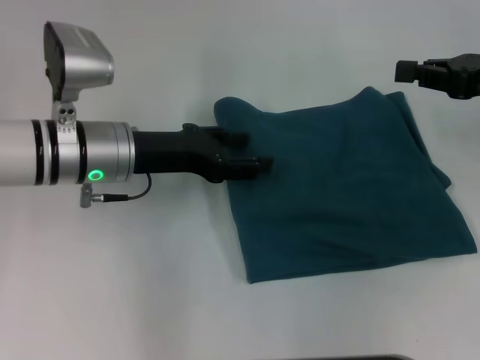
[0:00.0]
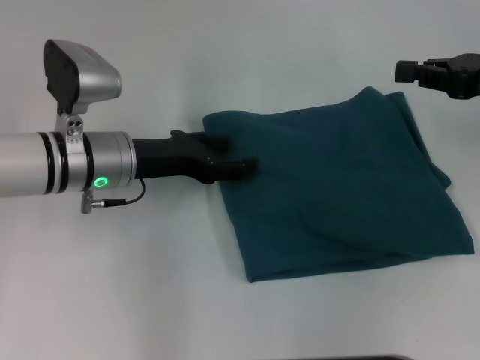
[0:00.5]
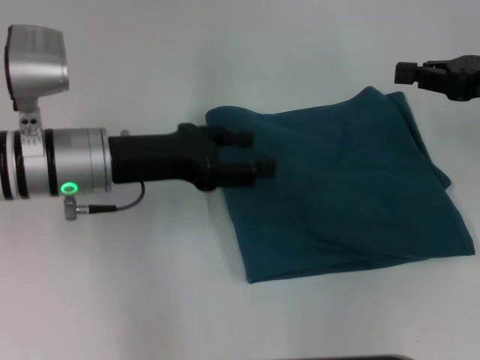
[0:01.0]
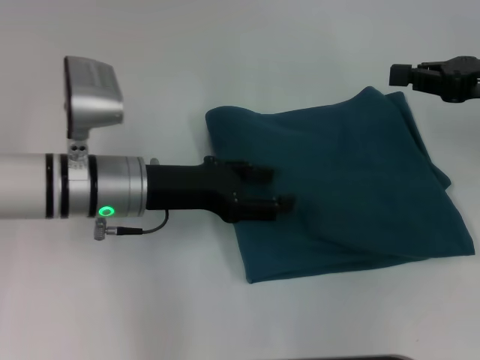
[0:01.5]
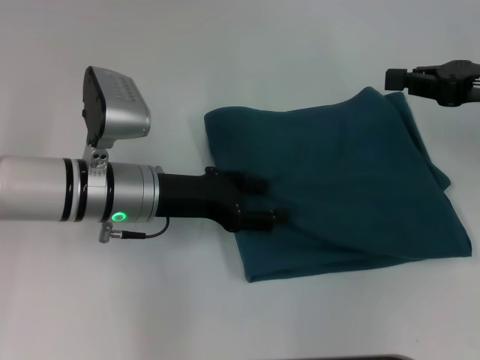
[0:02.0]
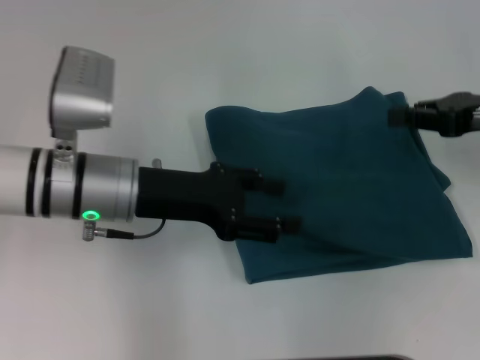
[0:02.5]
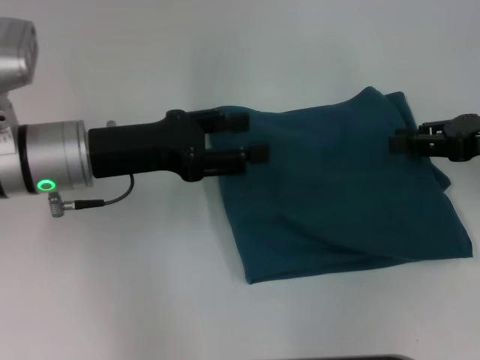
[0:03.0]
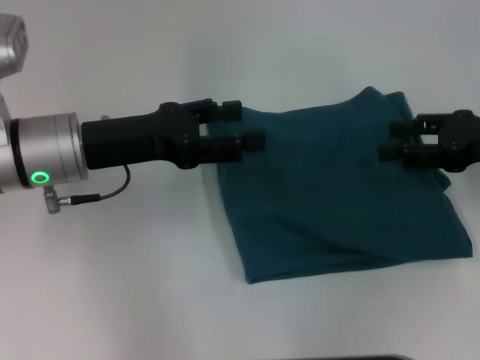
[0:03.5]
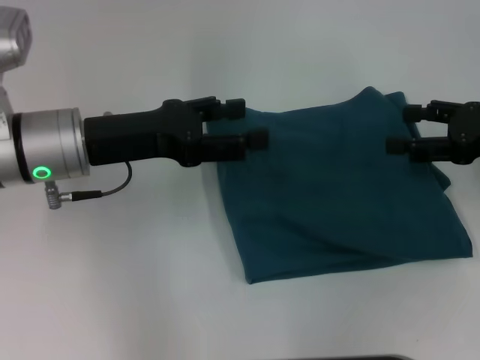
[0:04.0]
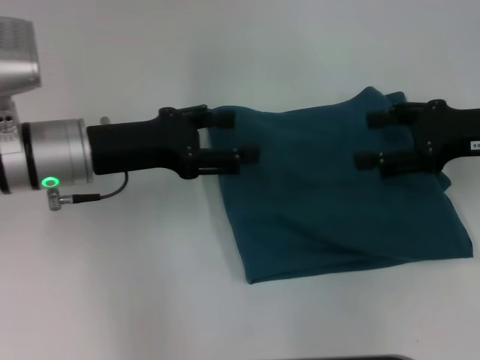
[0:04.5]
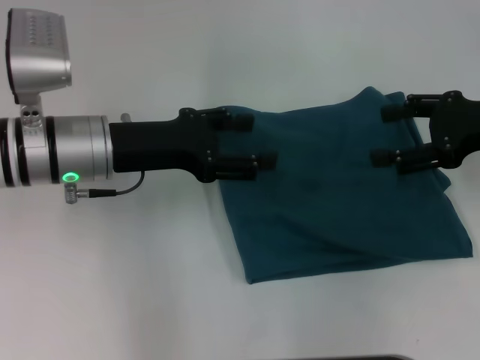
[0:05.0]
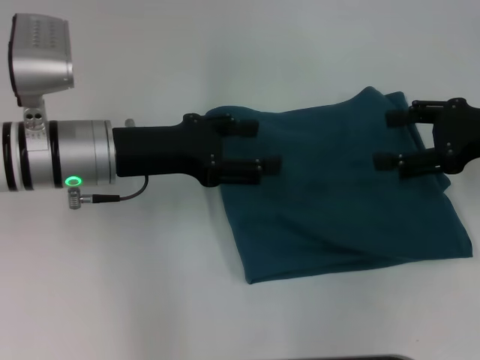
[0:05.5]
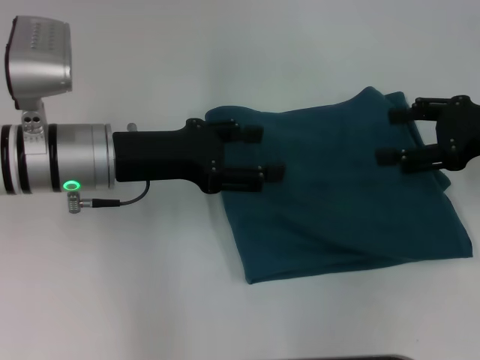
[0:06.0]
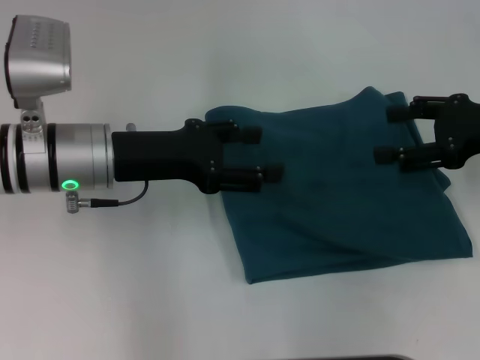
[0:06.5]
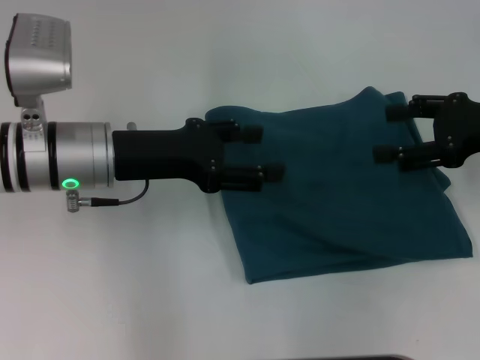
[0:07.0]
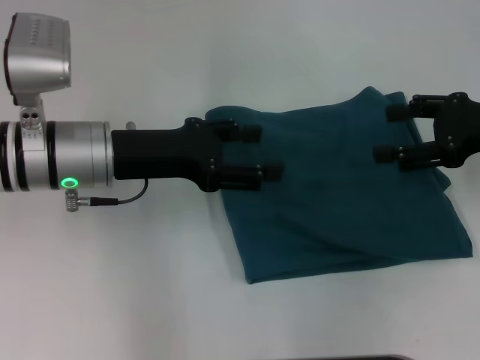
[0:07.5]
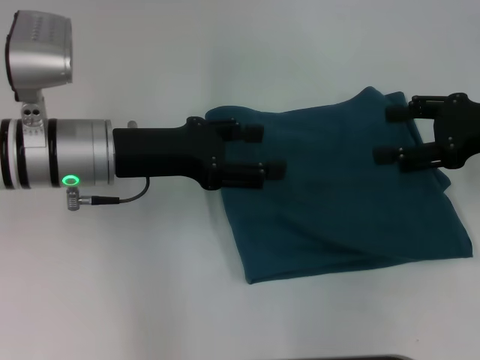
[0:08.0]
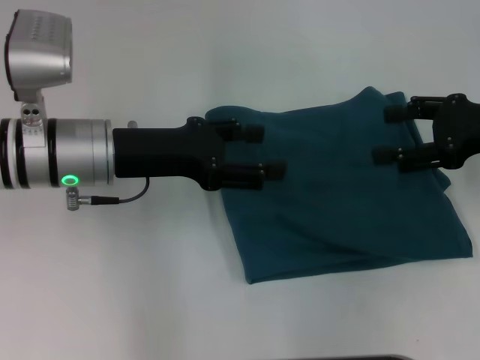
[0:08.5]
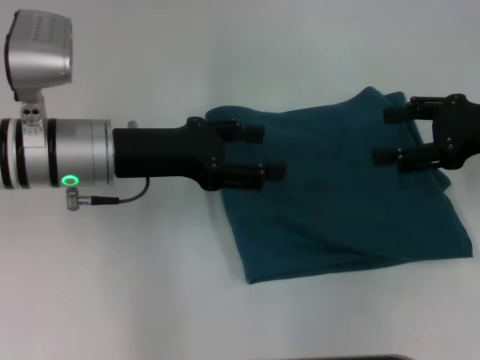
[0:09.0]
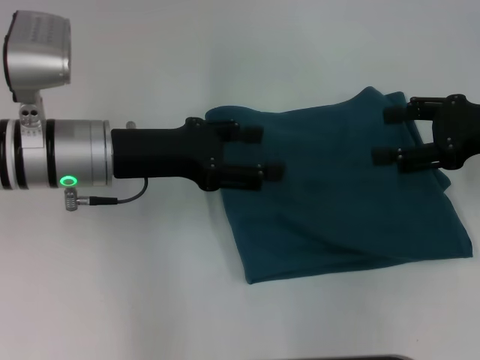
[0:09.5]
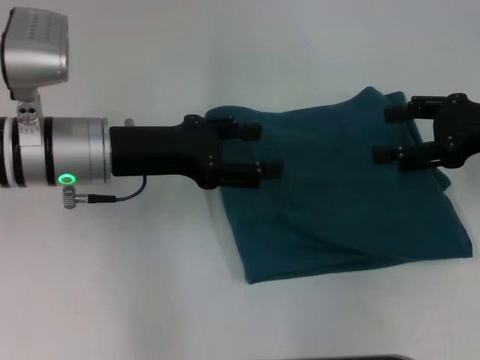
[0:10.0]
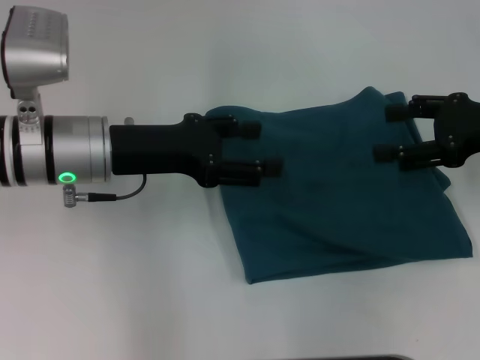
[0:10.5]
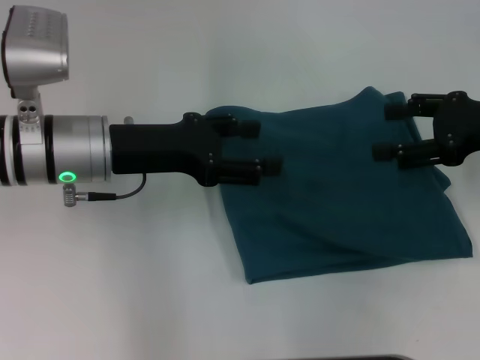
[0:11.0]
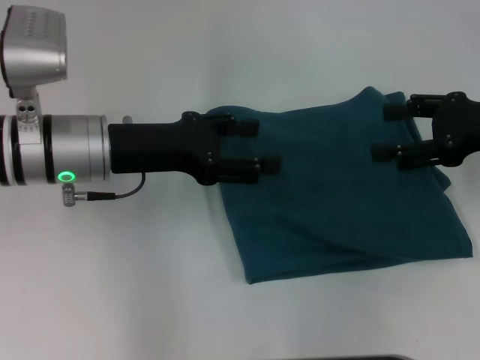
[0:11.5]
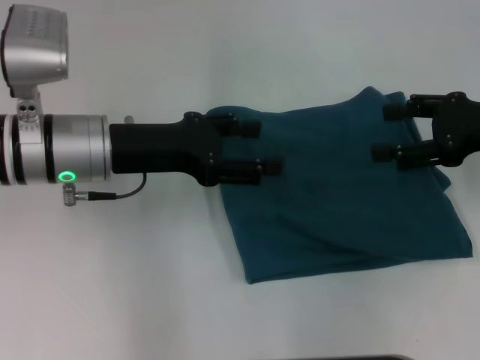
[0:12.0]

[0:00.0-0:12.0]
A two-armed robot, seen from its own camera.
0:00.0 to 0:02.0: There are only small adjustments of the grippers.
0:02.0 to 0:04.0: The left gripper heads upward, covering roughly 5 cm. The right gripper opens its fingers.
0:04.0 to 0:06.0: The grippers move only a little.
0:06.0 to 0:12.0: Both grippers stay put.

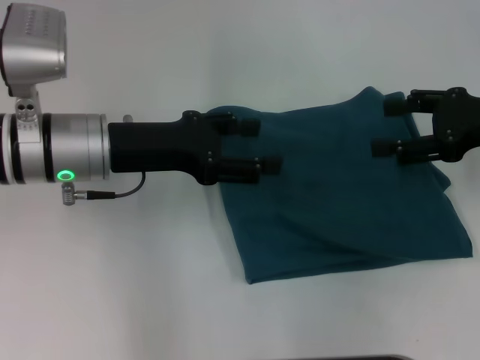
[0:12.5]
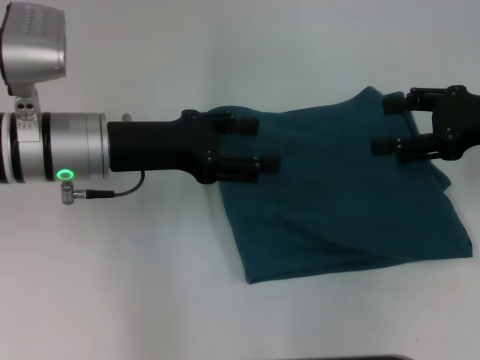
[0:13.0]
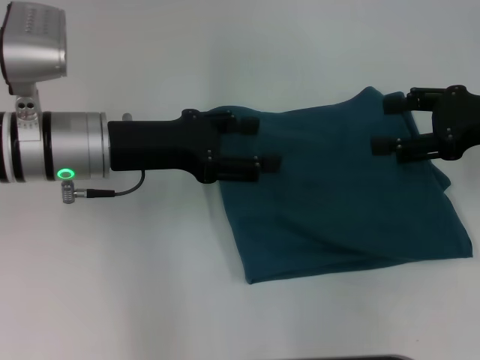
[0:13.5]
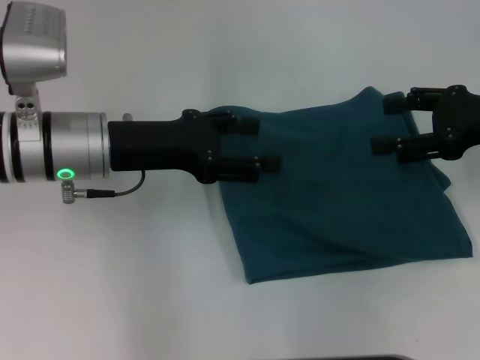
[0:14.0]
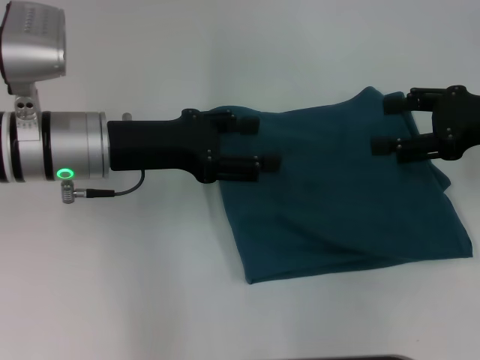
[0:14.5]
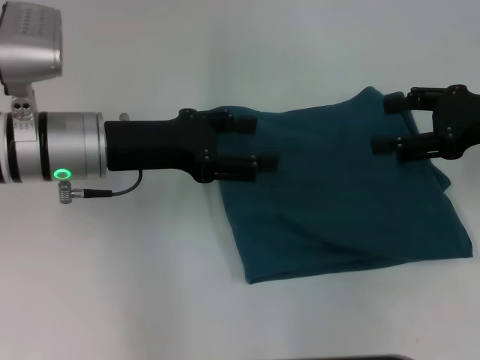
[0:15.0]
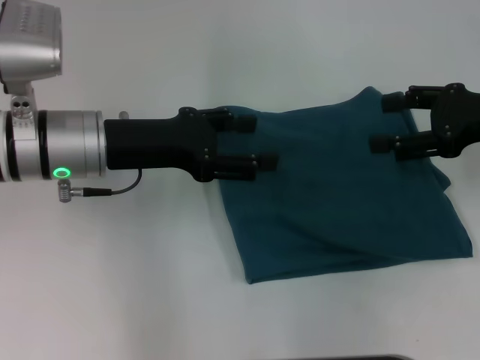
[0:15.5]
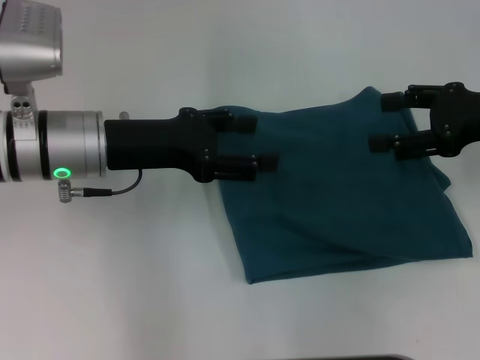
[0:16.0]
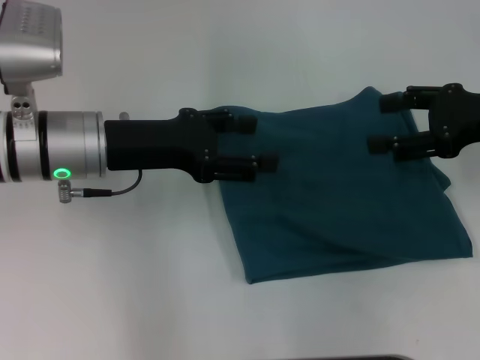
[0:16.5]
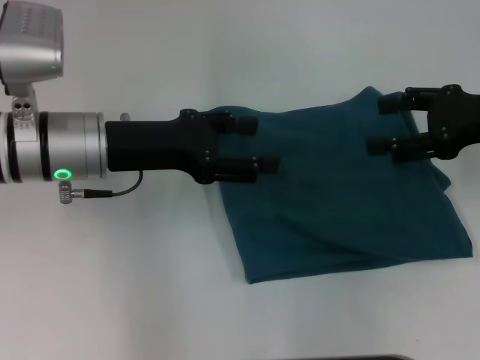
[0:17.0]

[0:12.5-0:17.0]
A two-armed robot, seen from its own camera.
0:12.5 to 0:17.0: The two grippers keep their place.

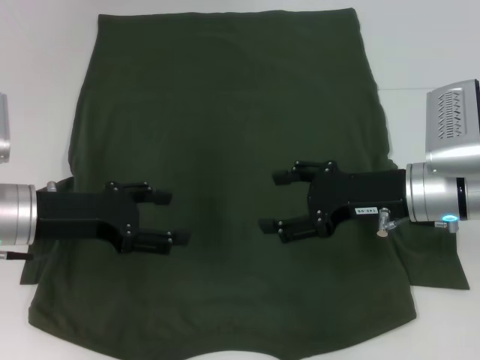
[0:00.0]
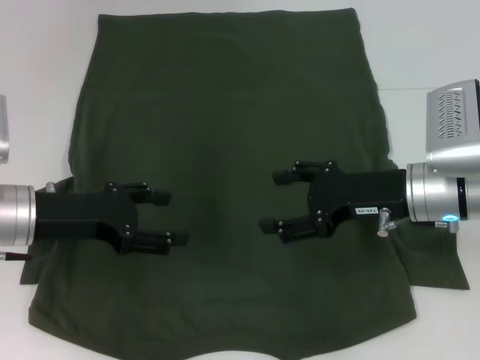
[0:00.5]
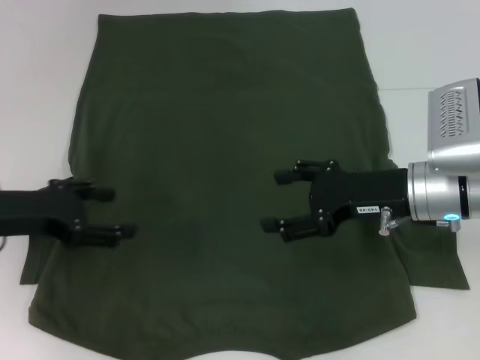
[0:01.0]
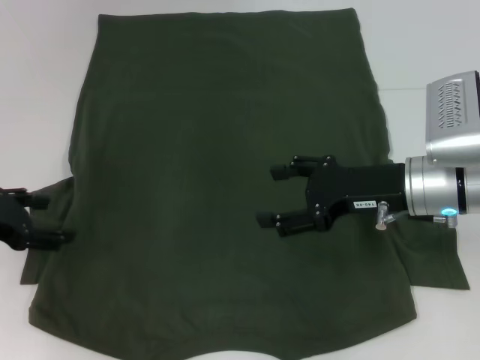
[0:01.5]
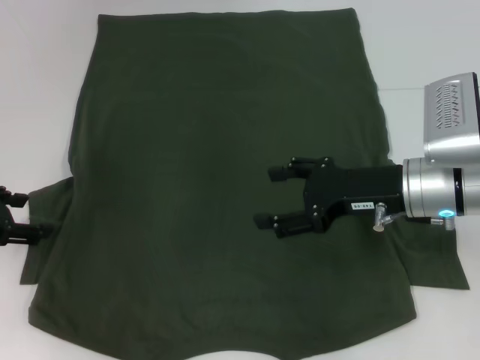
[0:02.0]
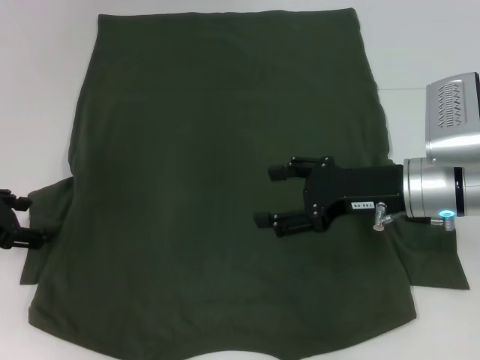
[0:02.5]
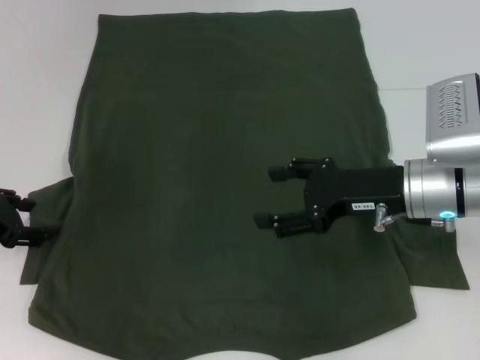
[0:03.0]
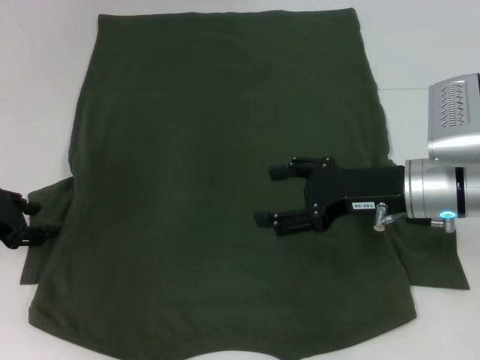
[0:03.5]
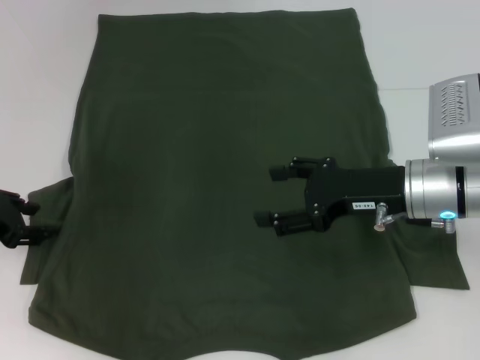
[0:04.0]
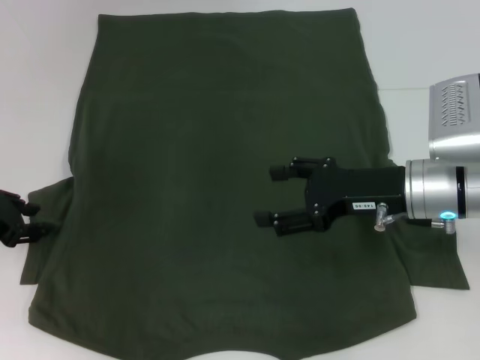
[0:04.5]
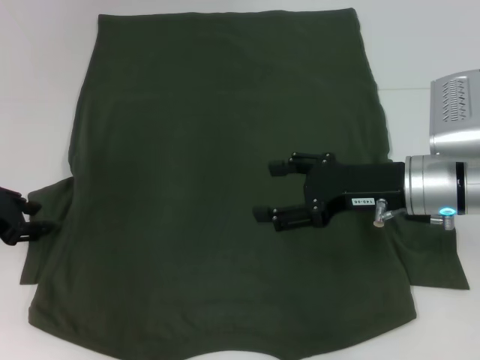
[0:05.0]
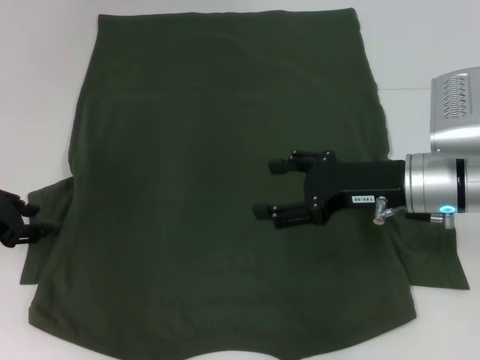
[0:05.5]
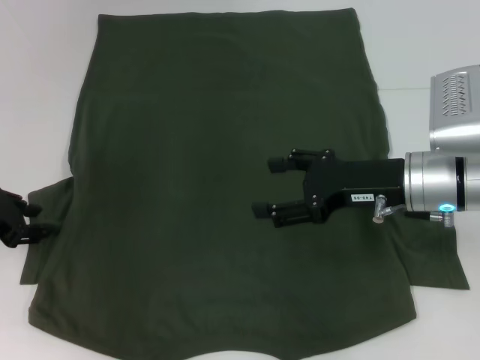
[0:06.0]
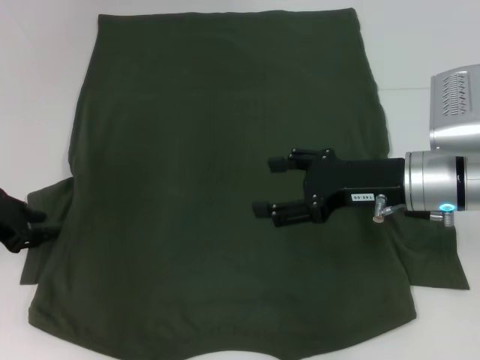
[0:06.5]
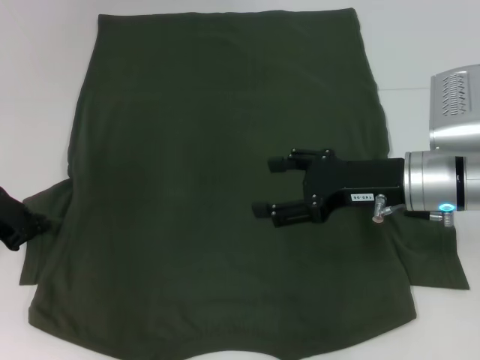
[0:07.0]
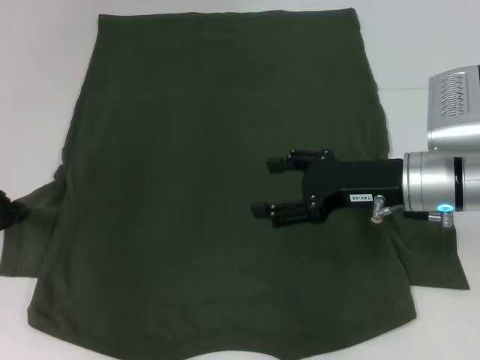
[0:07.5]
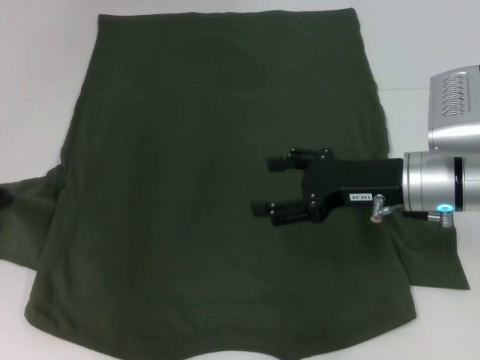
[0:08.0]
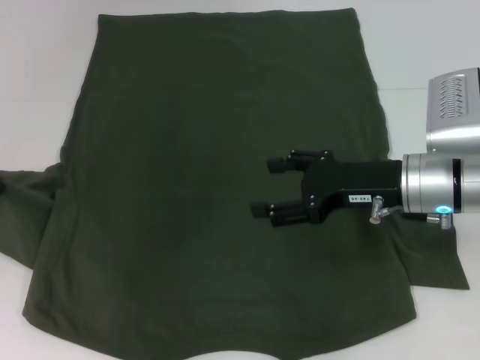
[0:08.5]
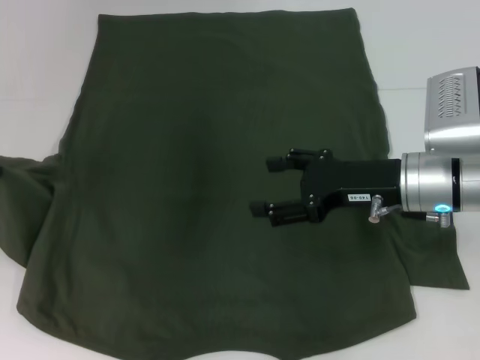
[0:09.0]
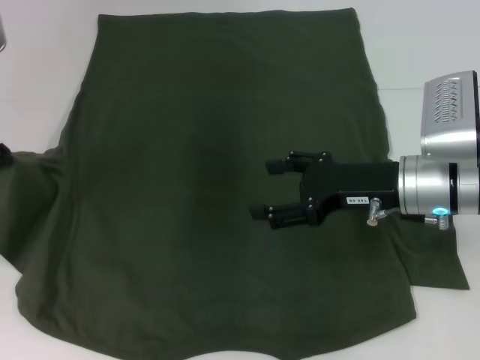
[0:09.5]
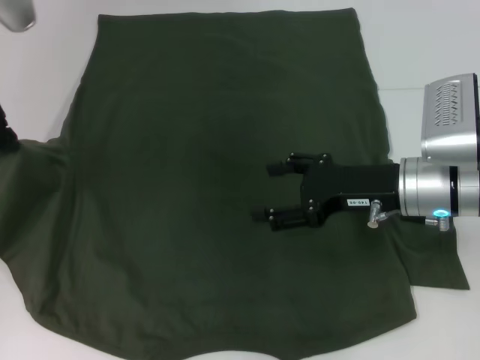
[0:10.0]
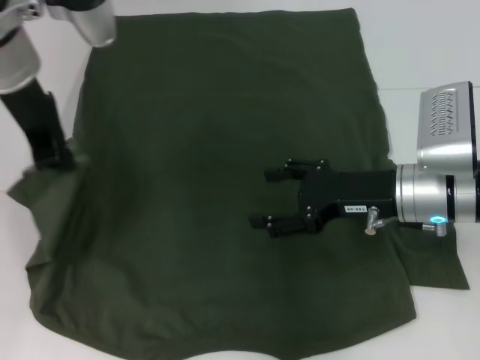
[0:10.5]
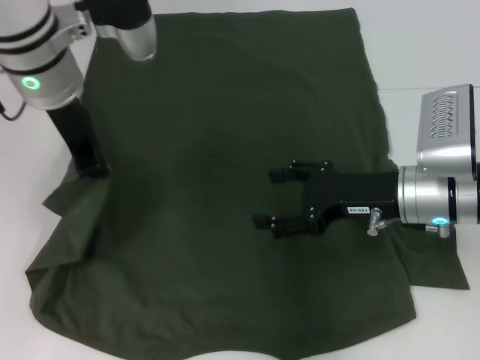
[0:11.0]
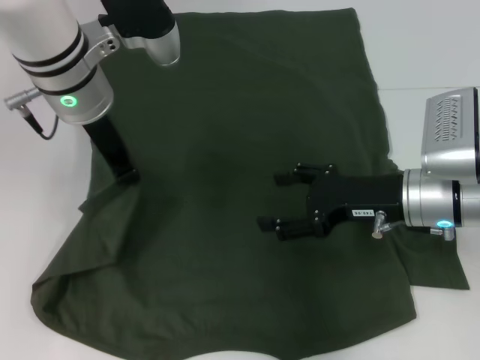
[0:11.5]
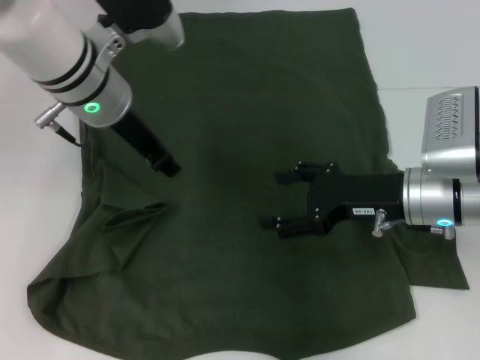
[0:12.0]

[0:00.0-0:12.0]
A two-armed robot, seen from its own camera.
0:00.0 to 0:02.0: The left gripper shifts about 10 cm to the left.
0:02.0 to 0:04.0: The grippers stay close to where they were, moving slightly.
0:04.0 to 0:06.0: Both grippers stay about where they are.
0:06.0 to 0:08.0: The left gripper heads upward, covering approximately 5 cm, and closes its fingers.
0:08.0 to 0:10.0: The left gripper heads upward and to the right, covering some 15 cm.
0:10.0 to 0:12.0: The left gripper goes roughly 15 cm to the right and downward.
